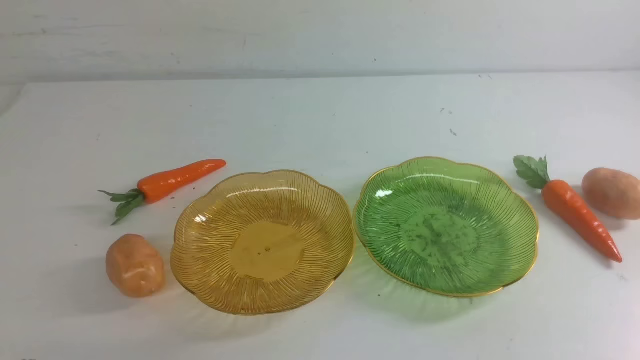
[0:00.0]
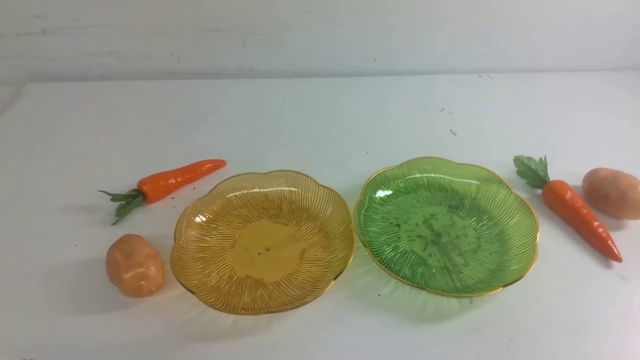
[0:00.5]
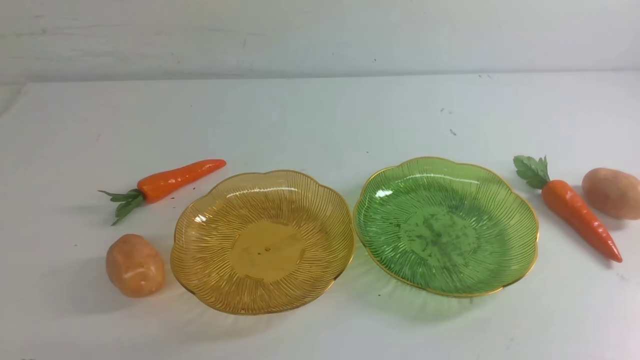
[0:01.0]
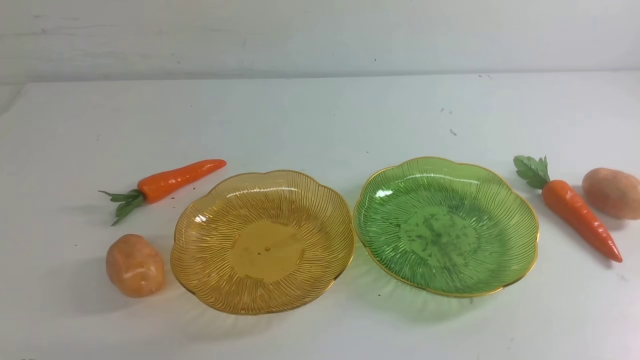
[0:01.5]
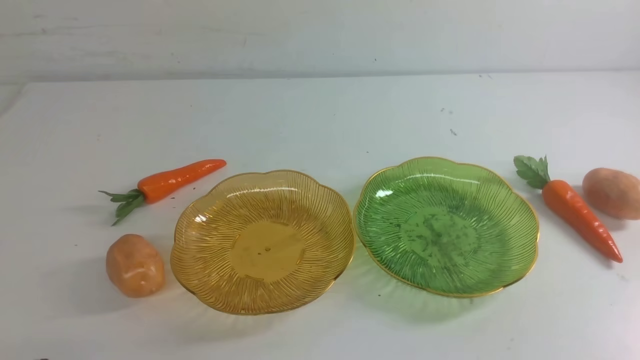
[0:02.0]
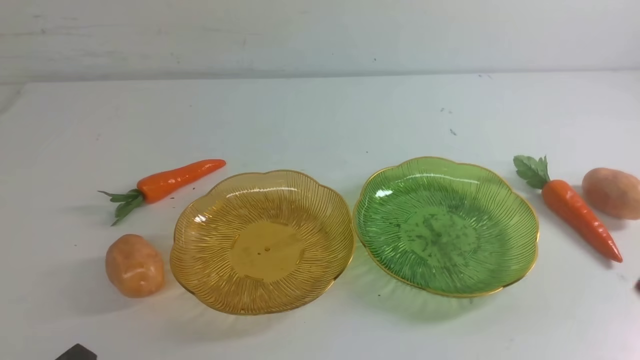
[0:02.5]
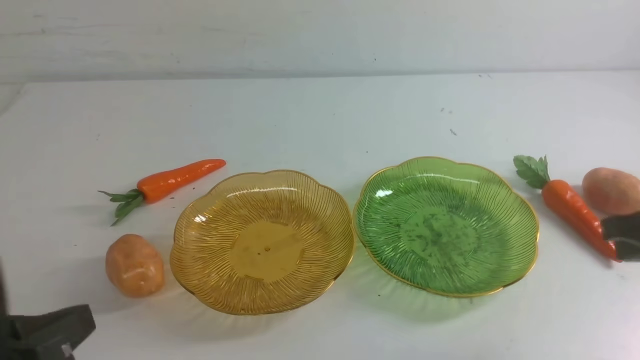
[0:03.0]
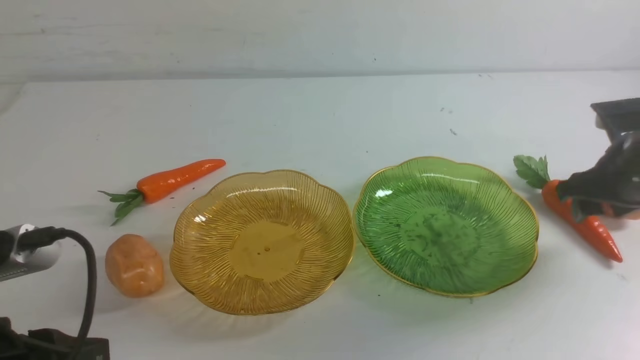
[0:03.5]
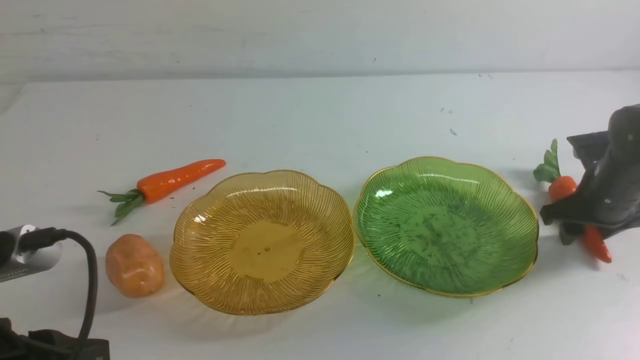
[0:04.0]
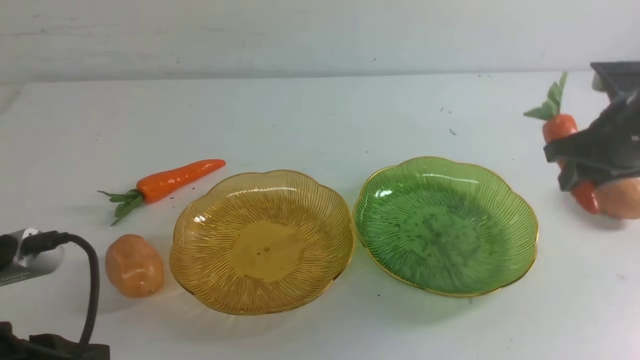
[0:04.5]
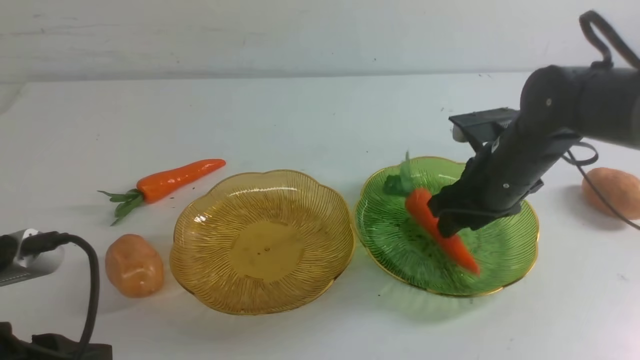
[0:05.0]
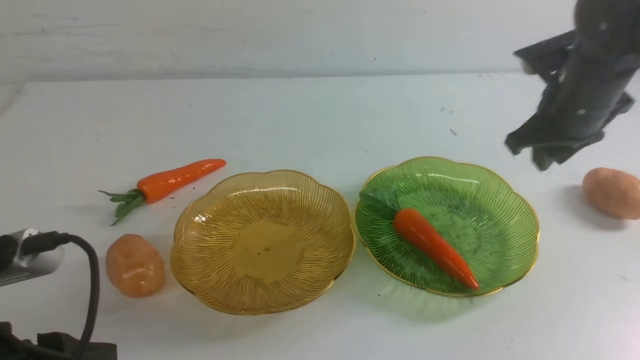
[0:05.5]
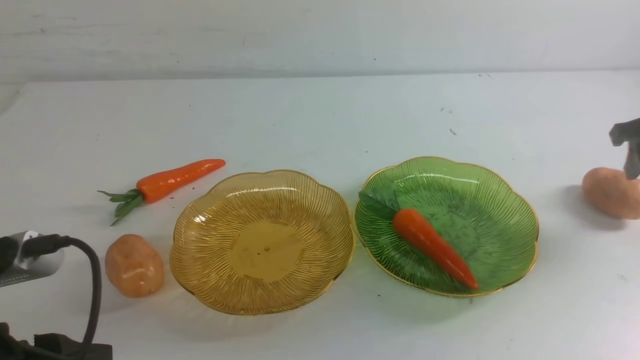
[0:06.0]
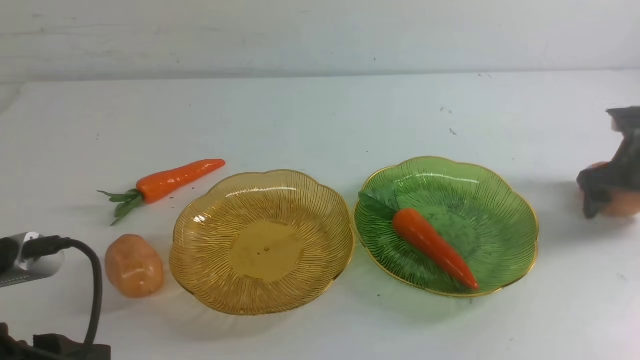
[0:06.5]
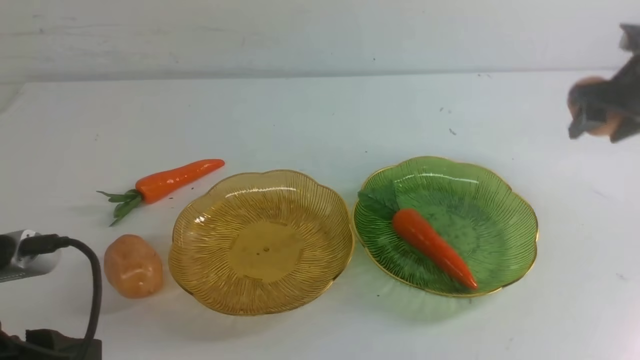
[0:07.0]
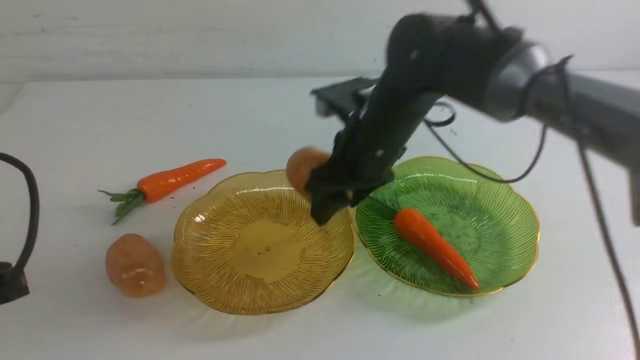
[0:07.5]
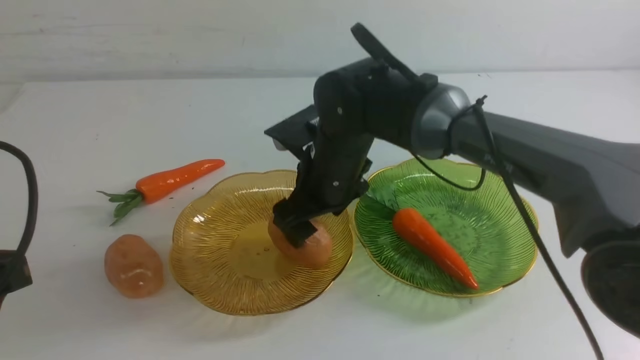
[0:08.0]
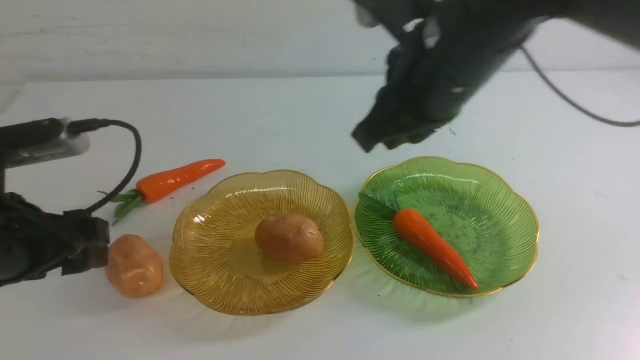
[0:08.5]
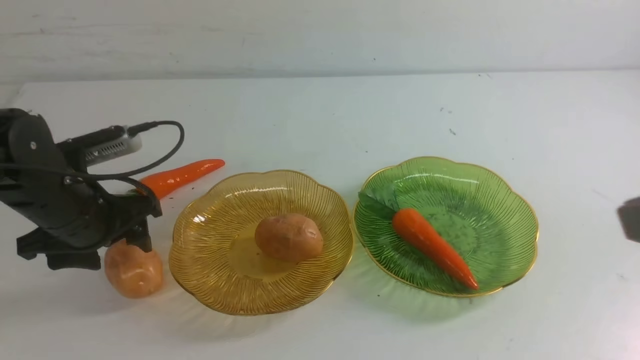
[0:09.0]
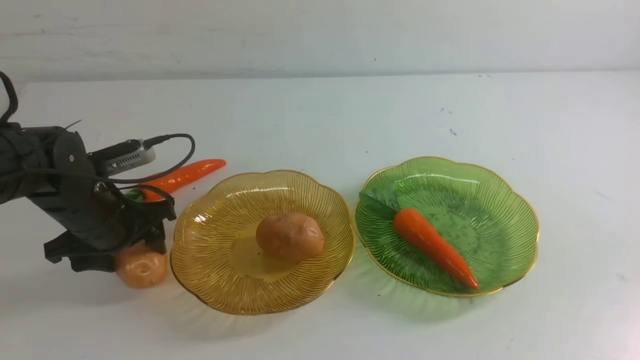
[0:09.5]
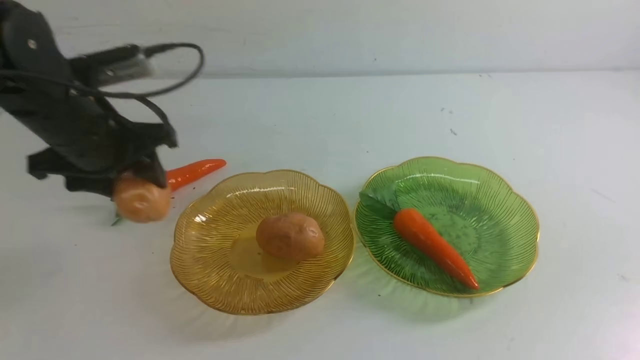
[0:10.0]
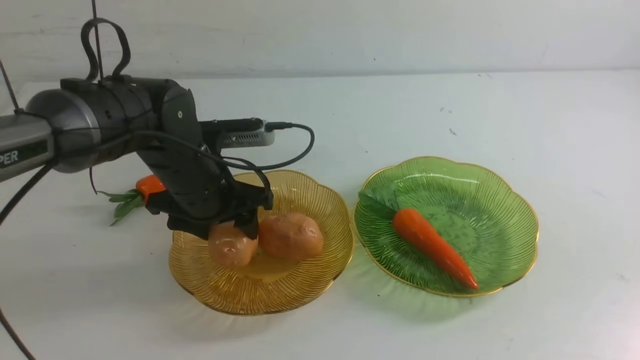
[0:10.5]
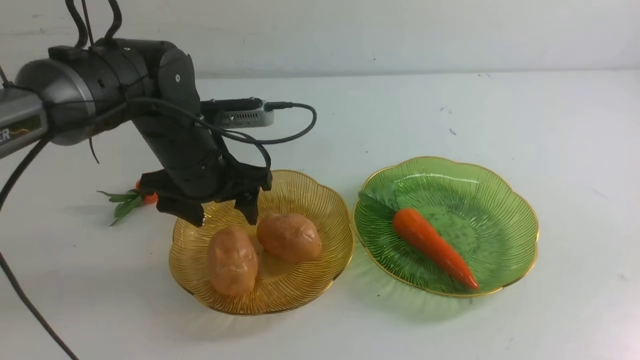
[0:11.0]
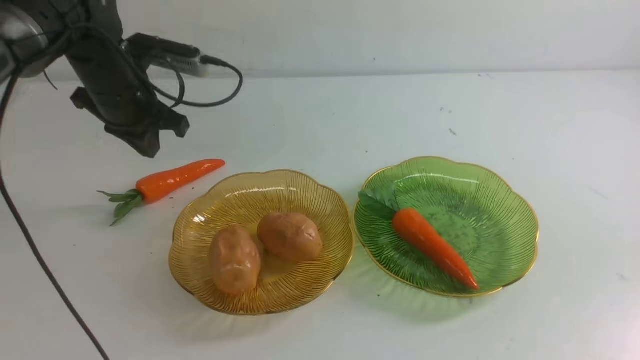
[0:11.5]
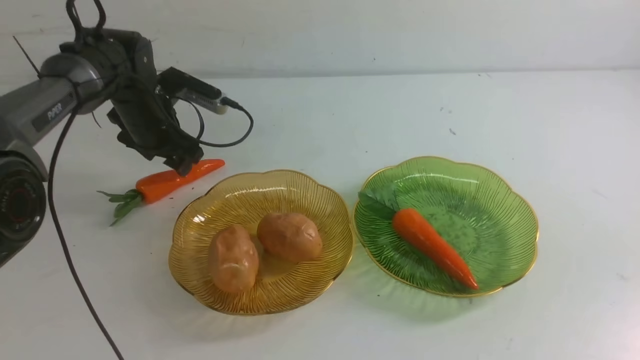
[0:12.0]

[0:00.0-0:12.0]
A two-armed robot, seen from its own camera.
Step, 0:00.0 to 0:05.0: use the right arm to grab a carrot and put it into the right plate.
Step, 0:06.0 to 0:08.0: Grab a potato with your right arm and put it on the left plate.
Step, 0:08.5 to 0:11.0: Grab a potato with your left arm and put it on the left plate.
0:02.0 to 0:04.0: The left gripper travels upward and forward by approximately 10 cm. The right gripper moves forward, some 30 cm, and opens its fingers.
0:04.0 to 0:06.0: The right gripper goes about 10 cm to the right, forward and downward, and opens.
0:06.0 to 0:08.0: The left gripper heads forward, covering some 20 cm, and opens its fingers; the right gripper shifts approximately 40 cm backward, upward and to the left, and closes up.
0:08.0 to 0:10.0: The right gripper shifts about 15 cm backward and to the right. The left gripper moves to the right and forward, about 15 cm.
0:10.0 to 0:12.0: The left gripper travels forward, to the right and upward by roughly 15 cm, and closes up.

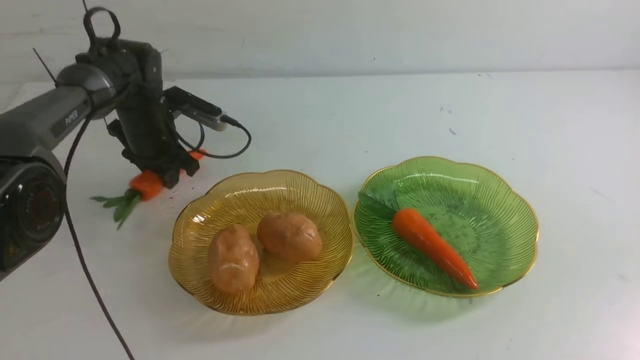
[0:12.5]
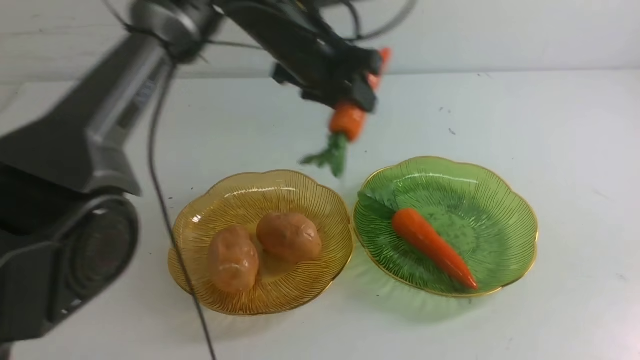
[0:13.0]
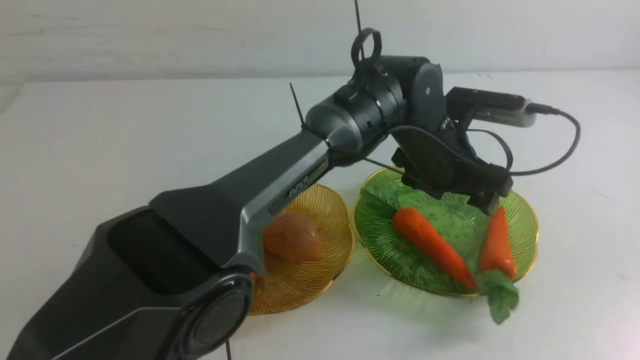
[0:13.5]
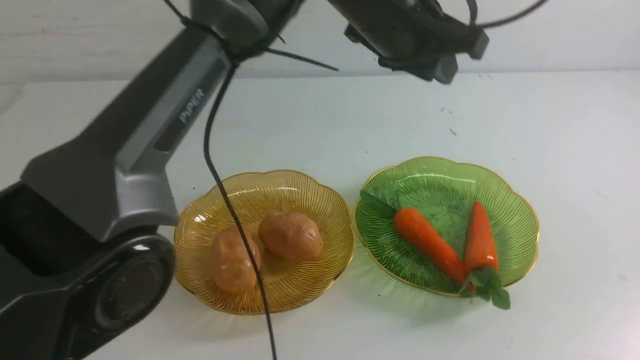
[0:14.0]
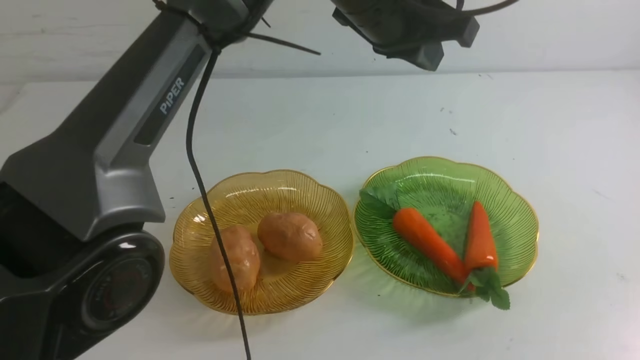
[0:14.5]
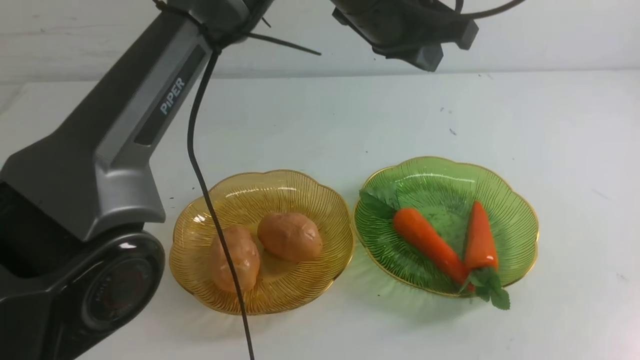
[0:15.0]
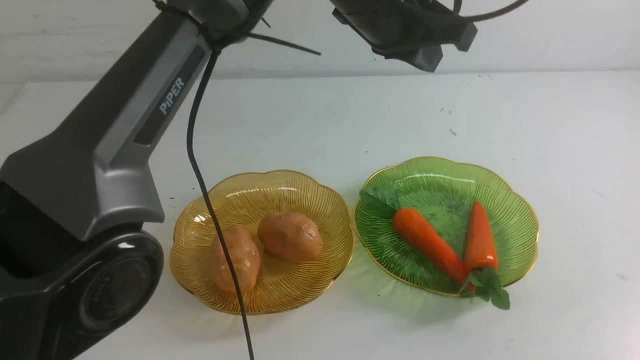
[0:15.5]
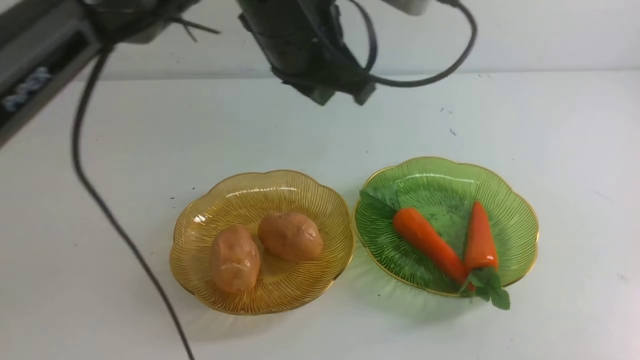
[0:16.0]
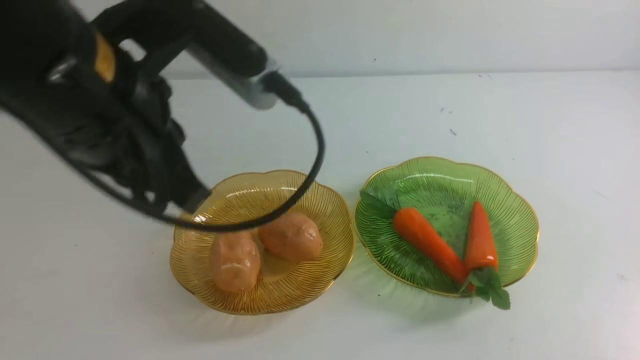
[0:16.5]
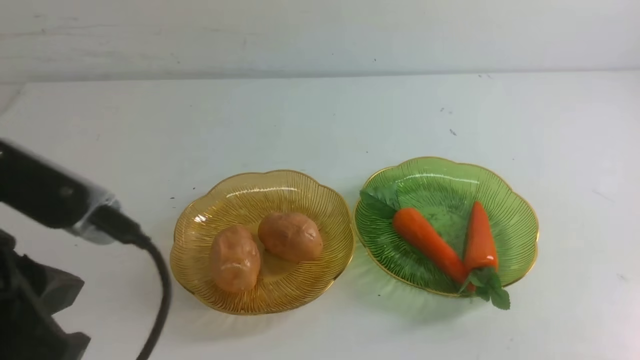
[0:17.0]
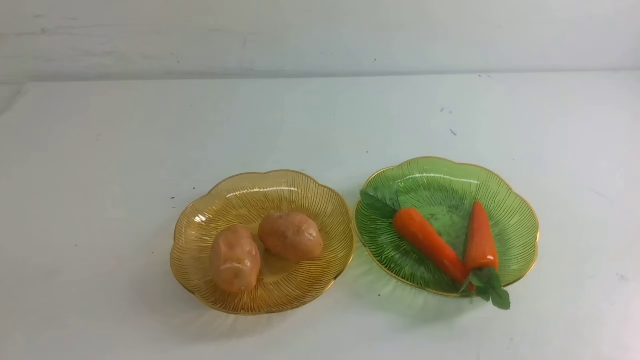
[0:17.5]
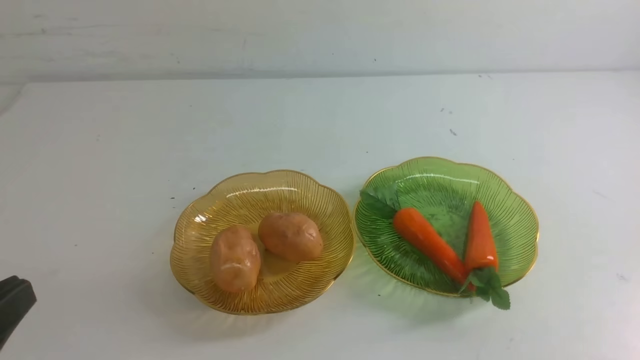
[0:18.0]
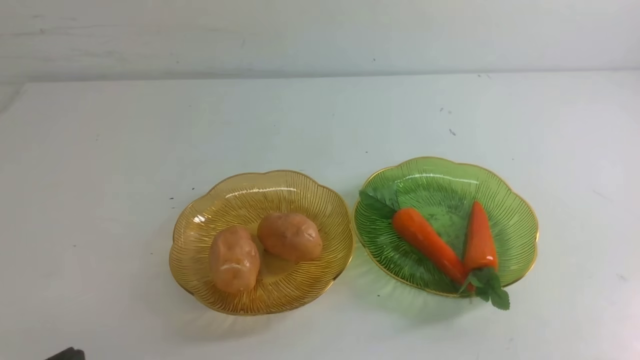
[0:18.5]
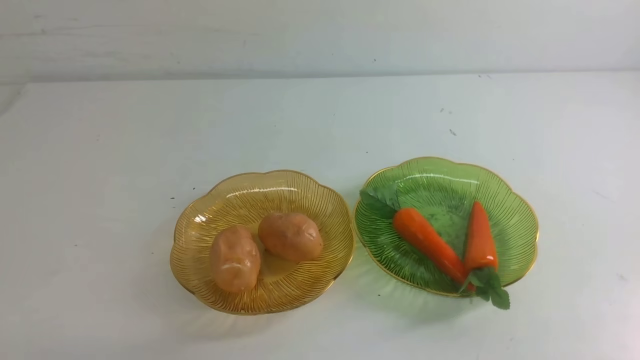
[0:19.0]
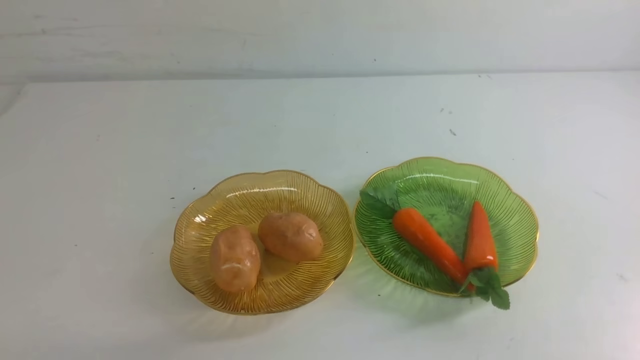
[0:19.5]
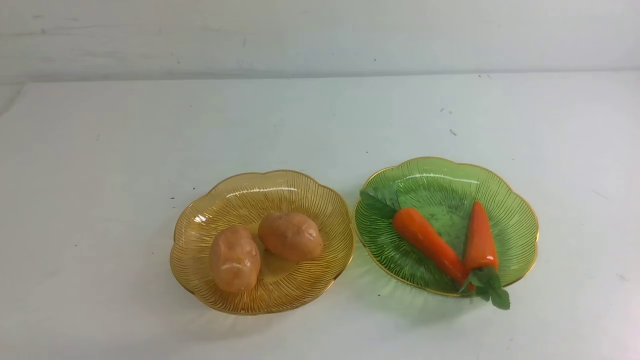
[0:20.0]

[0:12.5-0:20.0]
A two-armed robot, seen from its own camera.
0:12.5 to 0:14.5: The right gripper shifts roughly 15 cm downward. The left gripper shifts approximately 15 cm upward and to the left, and closes its fingers.
0:14.5 to 0:16.5: The right gripper shifts some 10 cm downward; the left gripper travels backward and to the left by roughly 40 cm.
0:16.5 to 0:18.0: The left gripper moves downward, about 15 cm.
